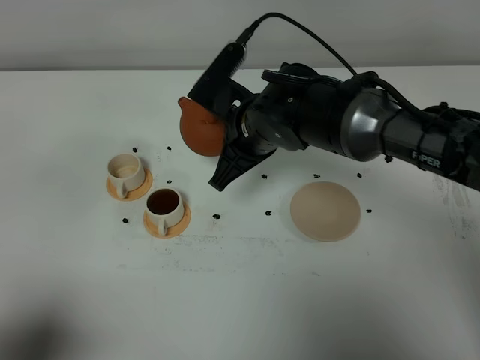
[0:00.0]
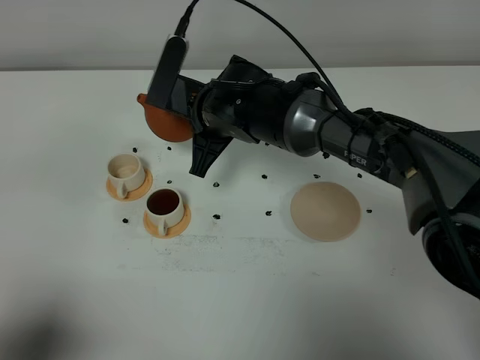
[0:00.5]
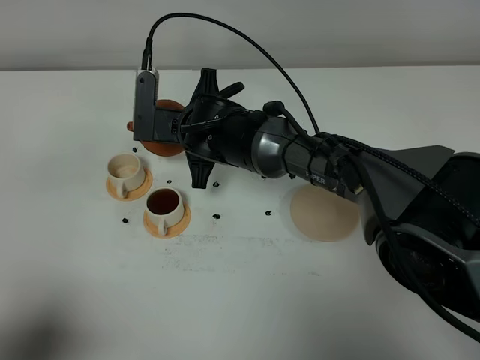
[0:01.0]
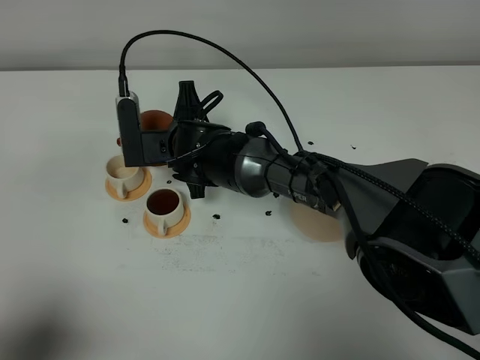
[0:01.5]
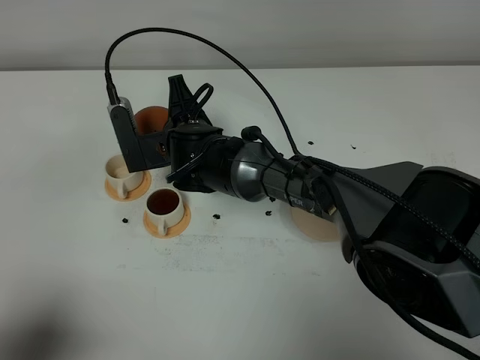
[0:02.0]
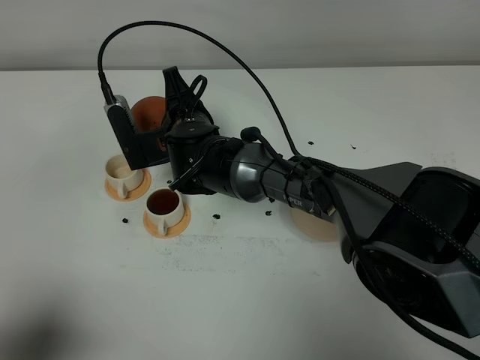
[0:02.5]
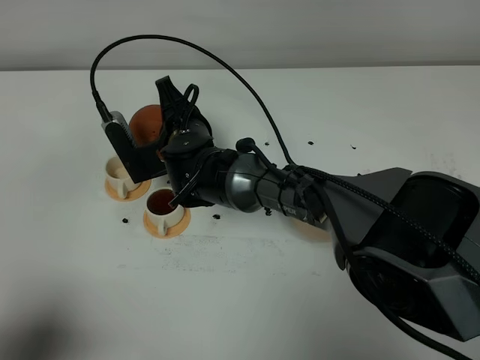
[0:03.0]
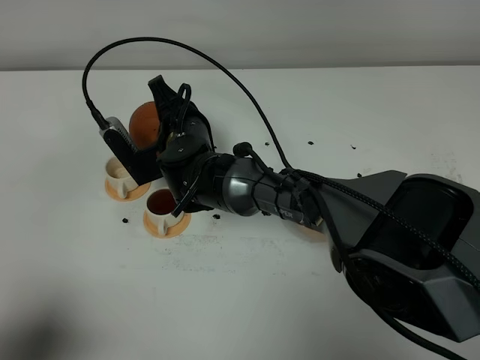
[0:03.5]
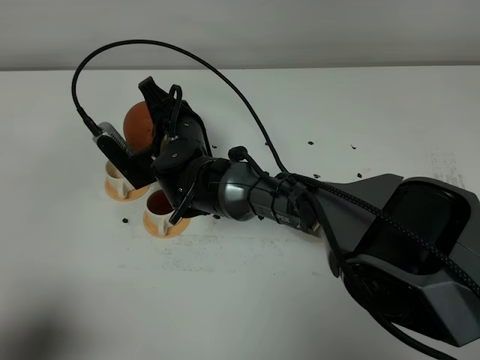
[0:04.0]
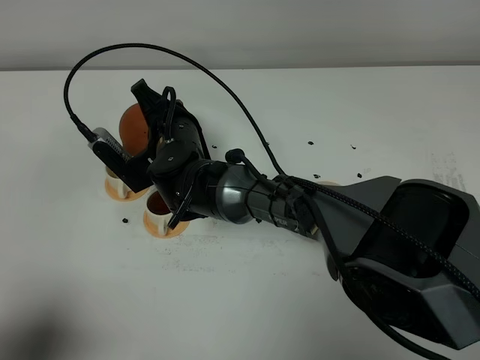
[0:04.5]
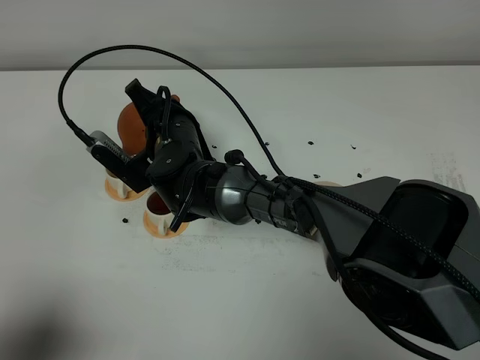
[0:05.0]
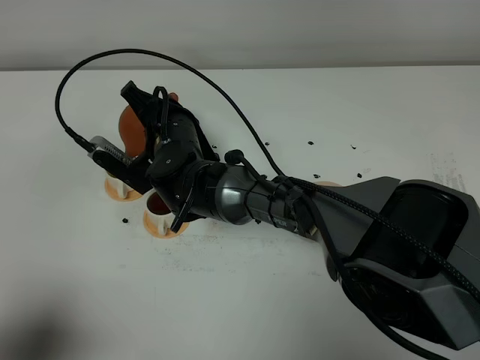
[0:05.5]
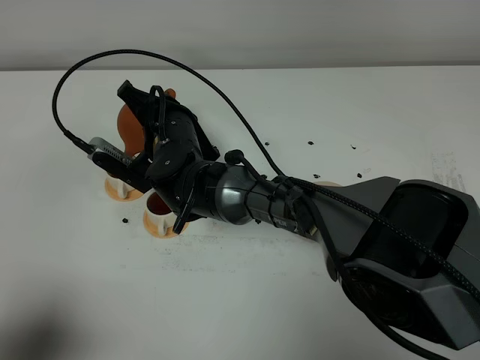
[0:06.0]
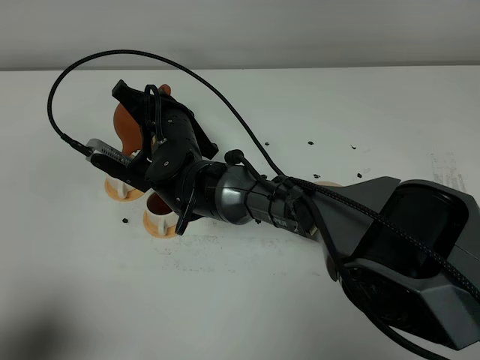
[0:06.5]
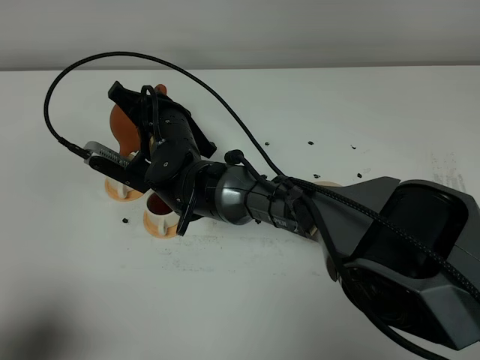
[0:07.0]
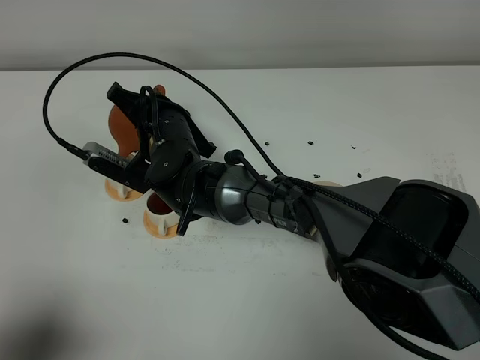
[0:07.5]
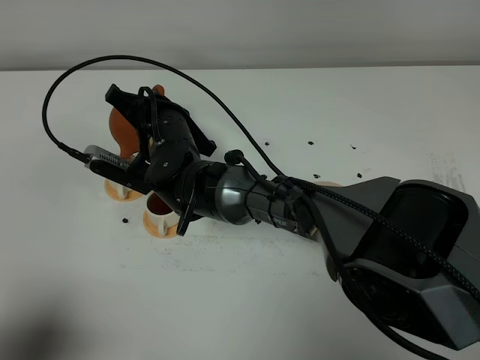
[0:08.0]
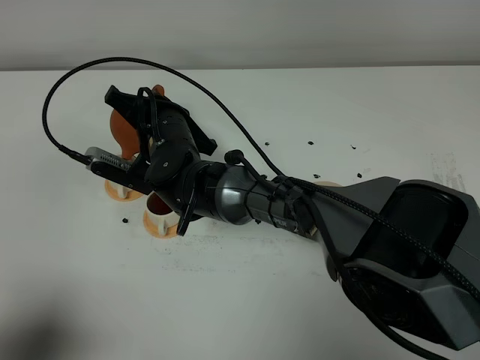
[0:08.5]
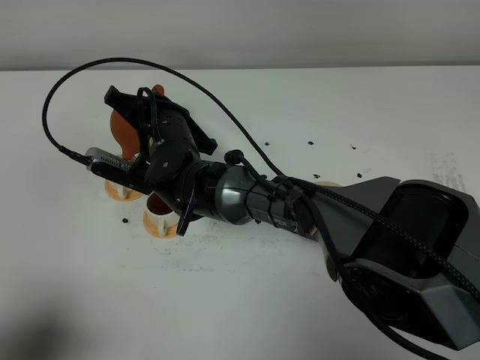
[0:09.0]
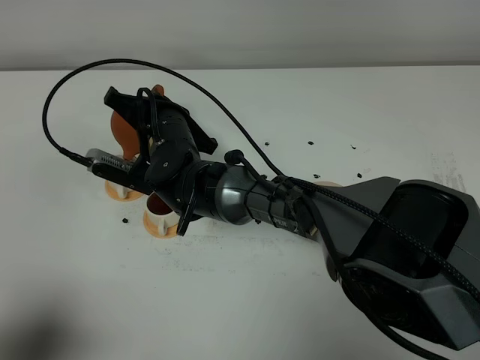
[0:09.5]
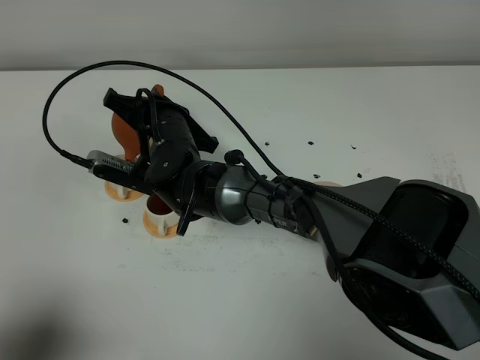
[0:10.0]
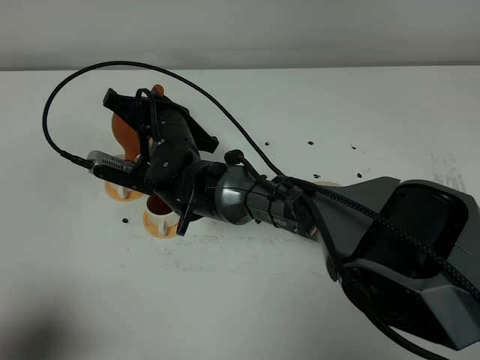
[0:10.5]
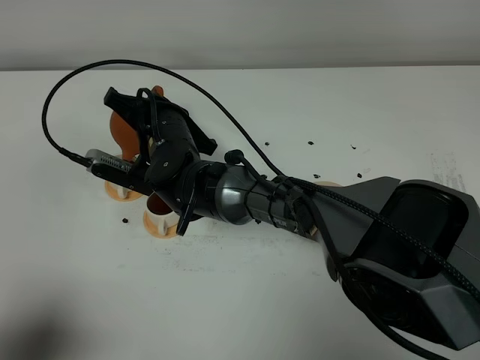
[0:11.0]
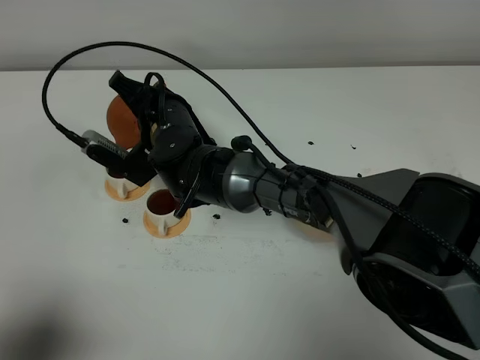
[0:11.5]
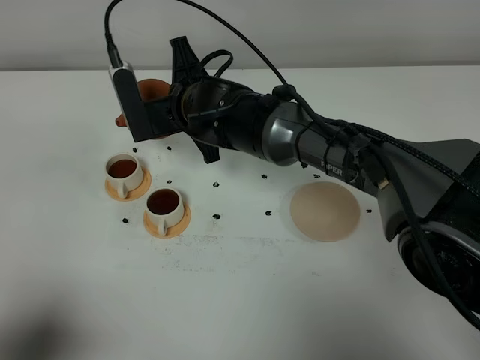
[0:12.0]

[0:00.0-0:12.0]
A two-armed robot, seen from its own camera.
Task of the whole recording: grasp the brown teapot and pour the tea into the two white teacups one by one, put the brown teapot back in its original place.
Step, 0:00.0 to 0:11.5: Pour tea into the teacup with the right gripper.
0:00.0 to 0:02.0: The right gripper moves to the left and downward, approximately 10 cm.
0:04.0 to 0:06.0: The grippers move only a little.
0:06.0 to 0:08.0: There are only small adjustments of the grippers.
0:08.0 to 0:10.0: The two grippers keep their place.
0:10.0 to 0:12.0: The right gripper changes place by about 5 cm.

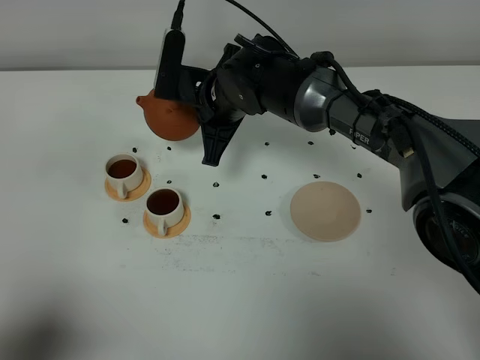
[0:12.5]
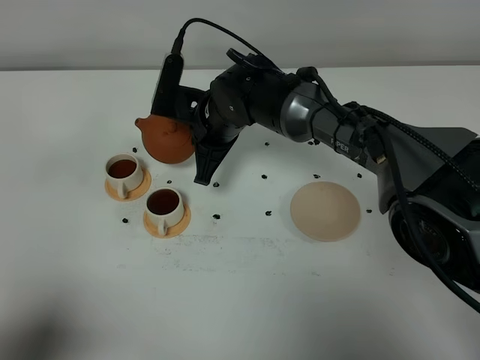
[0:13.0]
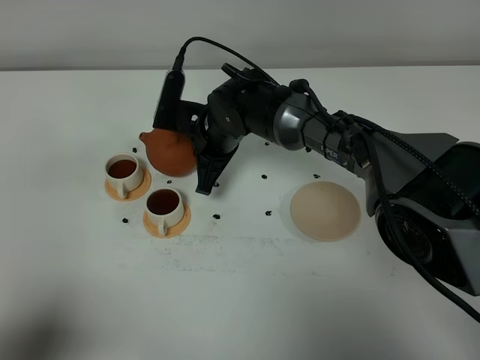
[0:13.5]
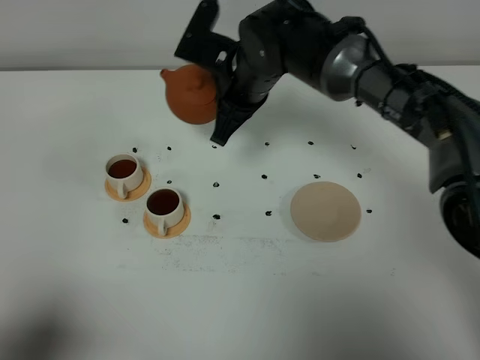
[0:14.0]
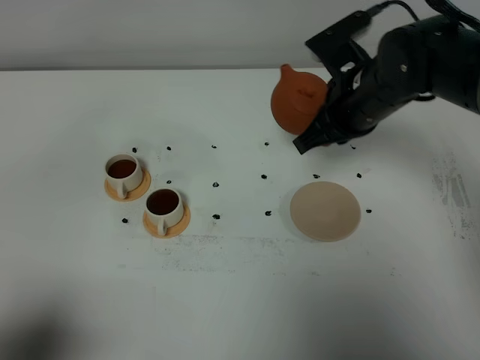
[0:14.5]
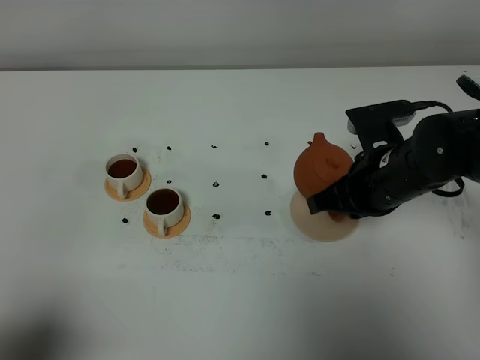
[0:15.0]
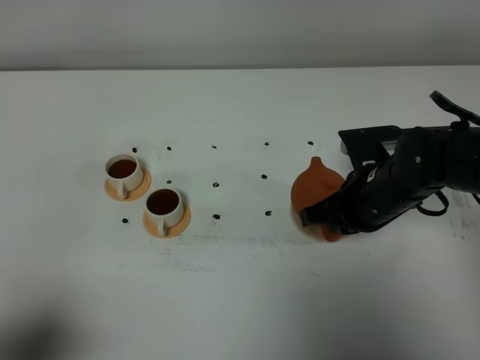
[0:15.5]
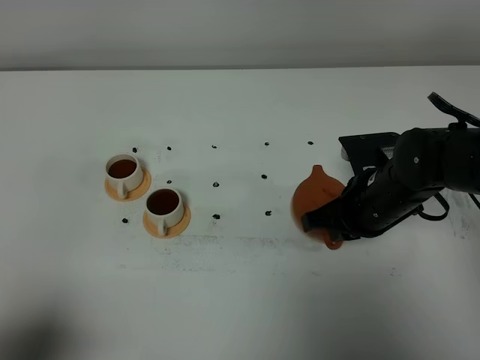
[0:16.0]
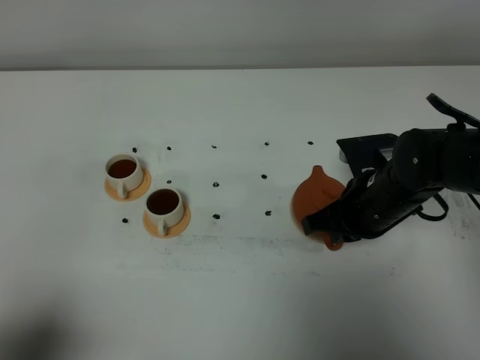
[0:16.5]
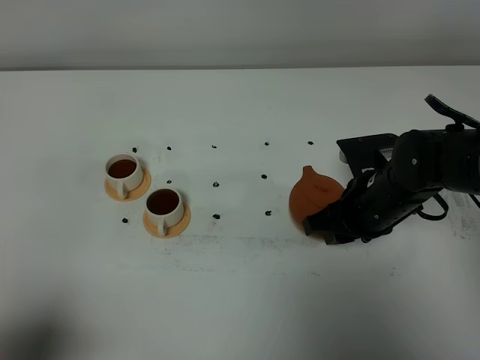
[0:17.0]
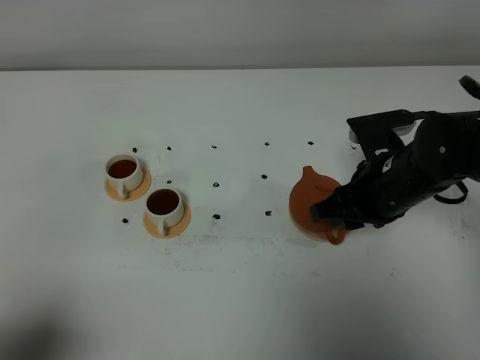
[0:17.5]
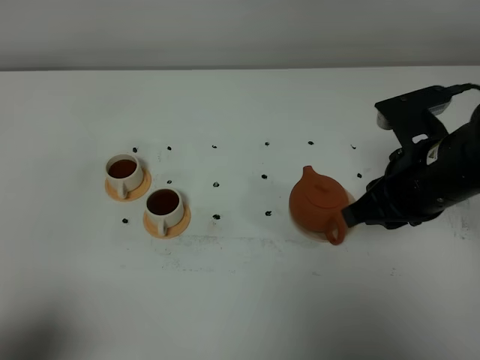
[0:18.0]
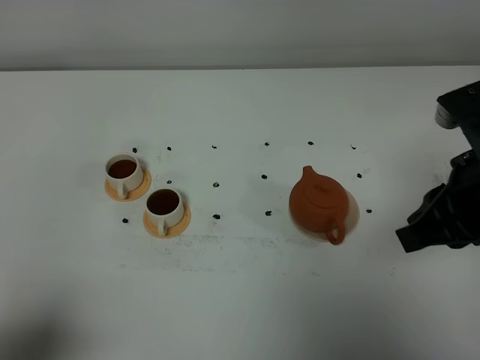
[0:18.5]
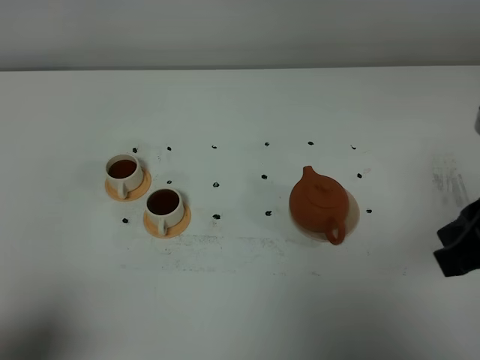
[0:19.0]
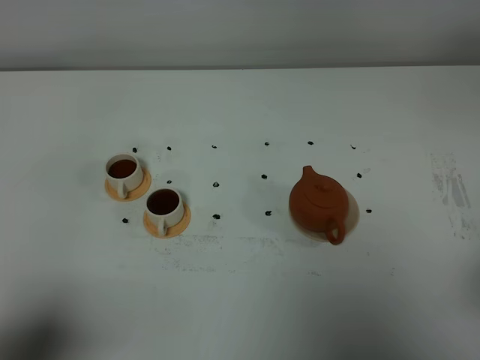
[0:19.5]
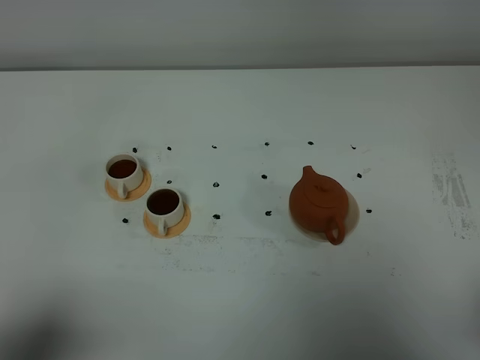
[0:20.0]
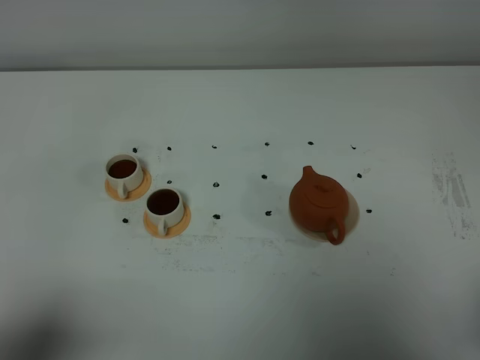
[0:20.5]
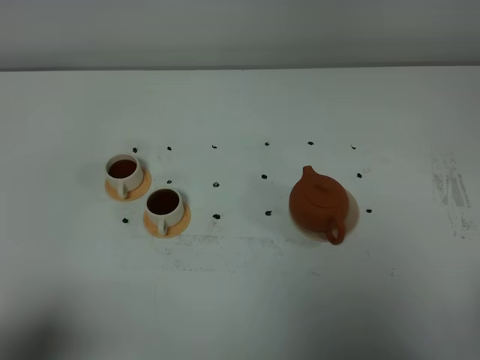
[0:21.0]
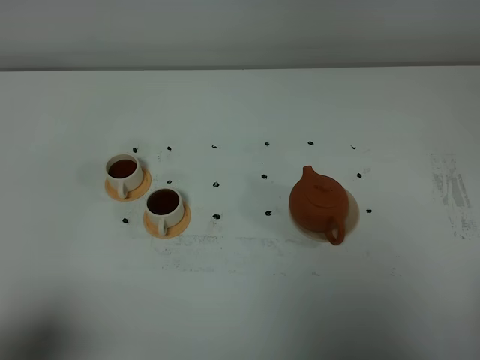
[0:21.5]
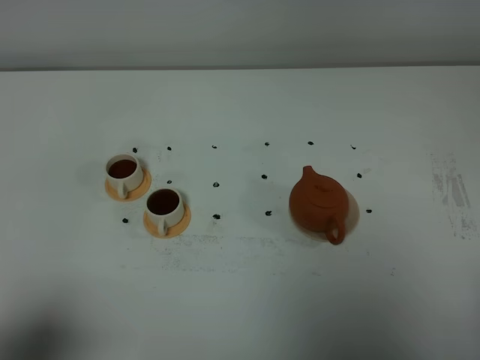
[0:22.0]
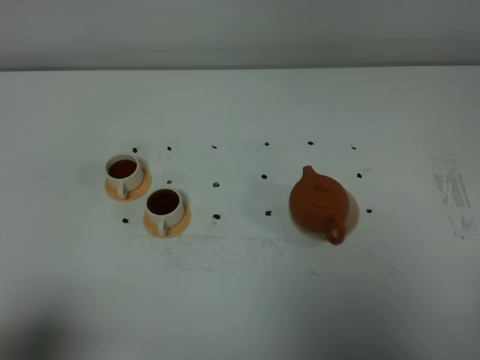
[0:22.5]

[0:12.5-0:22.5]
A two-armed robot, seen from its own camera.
Task of the whole recording: grasp the brown teapot and pour the tea into the two white teacups one by one, put the brown teapot back in its original place.
0:12.5 to 0:14.5: The right gripper is displaced to the right by approximately 15 cm.
0:14.5 to 0:16.5: The right gripper goes some 10 cm downward and backward.
0:16.5 to 0:18.5: The right gripper is displaced upward and backward by about 20 cm, and opens, then closes once more.
0:18.5 to 0:20.5: The right gripper moves backward and to the right, some 15 cm.

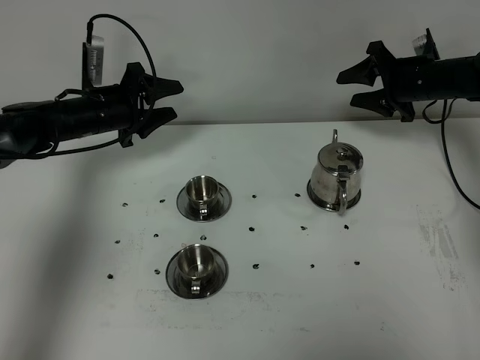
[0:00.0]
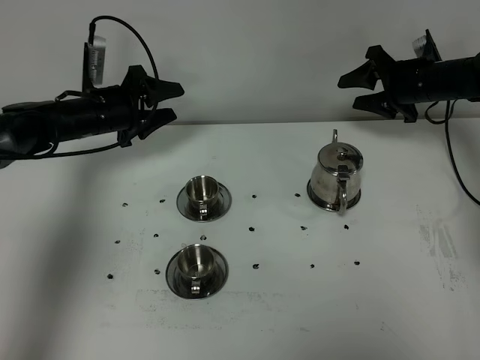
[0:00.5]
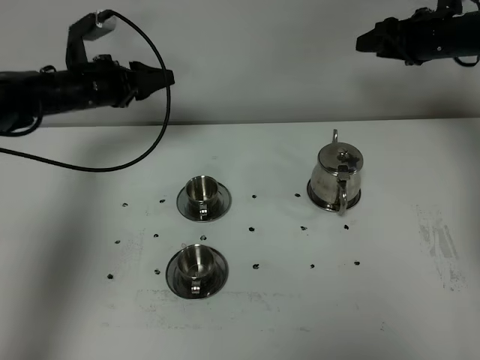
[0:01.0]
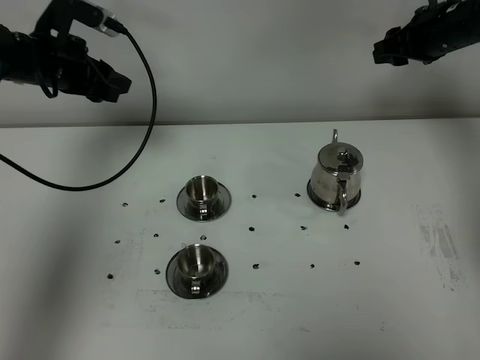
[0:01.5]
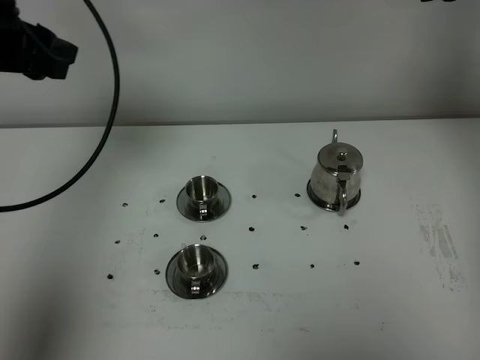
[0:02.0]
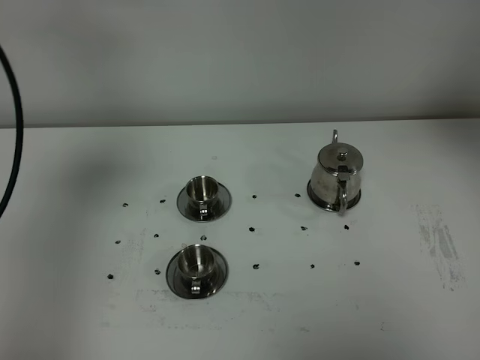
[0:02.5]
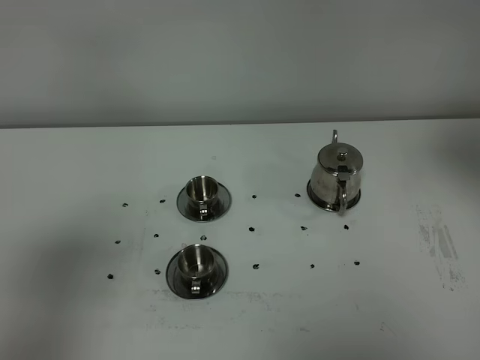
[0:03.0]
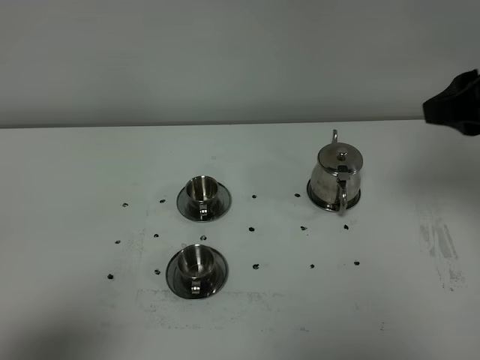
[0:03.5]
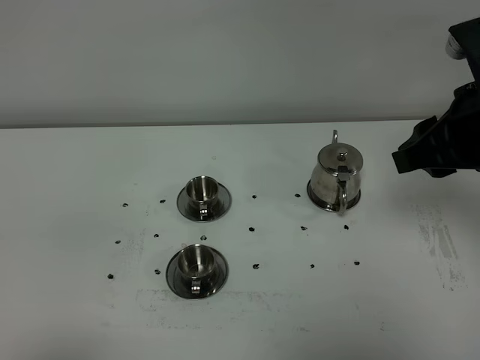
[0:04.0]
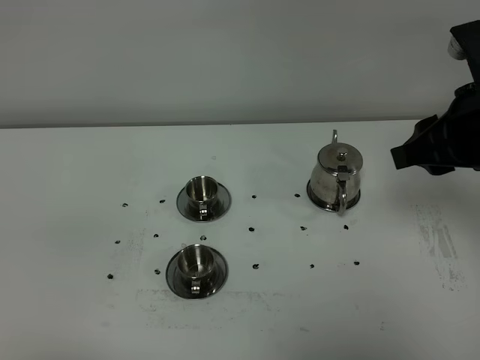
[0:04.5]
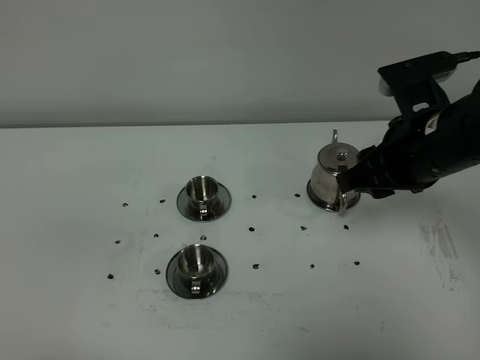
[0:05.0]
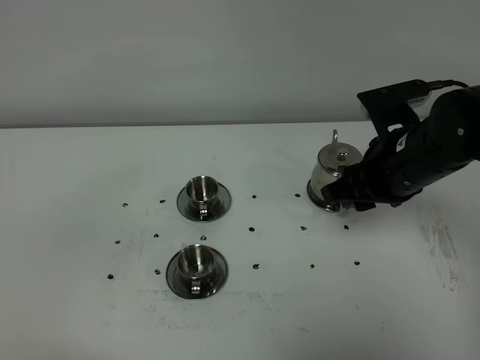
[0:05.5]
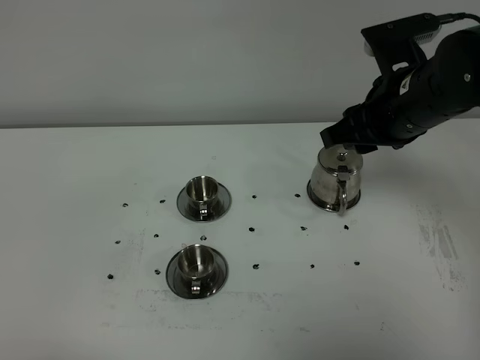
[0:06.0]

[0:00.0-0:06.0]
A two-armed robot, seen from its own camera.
Task of the whole recording: grasp the stainless steel teapot and pour the tea into the two stainless steel teacups one by one, put the stainless steel teapot back in its original place.
0:00.0 to 0:02.0: Both grippers travel together upward and backward, roughly 25 cm.
0:02.0 to 0:04.0: The left gripper travels backward by roughly 40 cm, and closes. The right gripper shifts about 20 cm backward.
0:04.0 to 0:06.0: The right gripper heads forward, covering about 10 cm.
